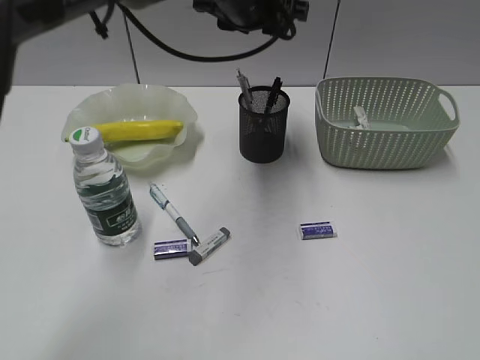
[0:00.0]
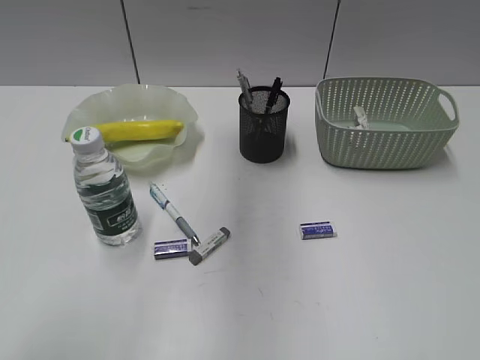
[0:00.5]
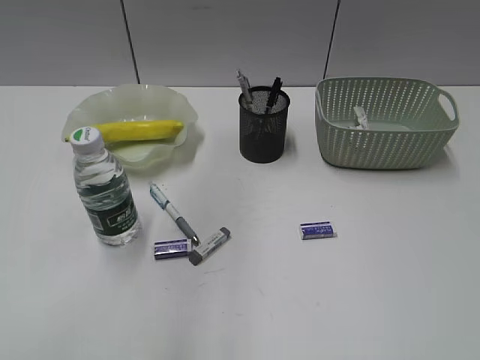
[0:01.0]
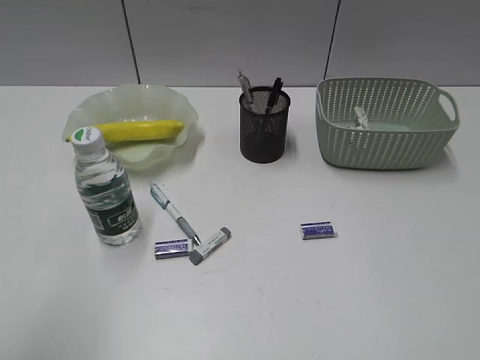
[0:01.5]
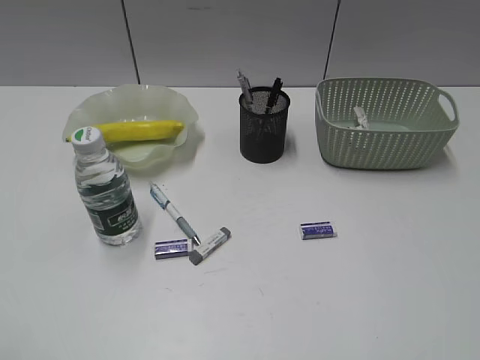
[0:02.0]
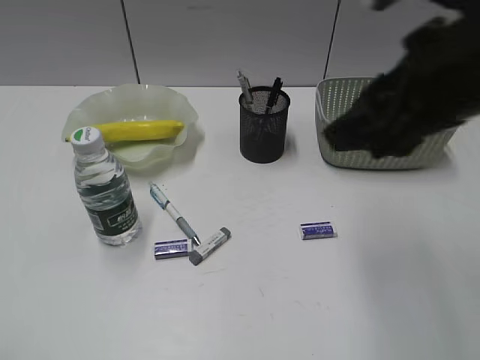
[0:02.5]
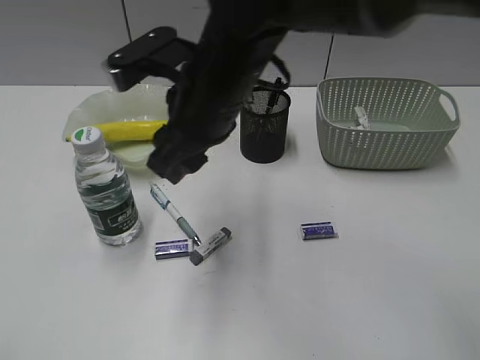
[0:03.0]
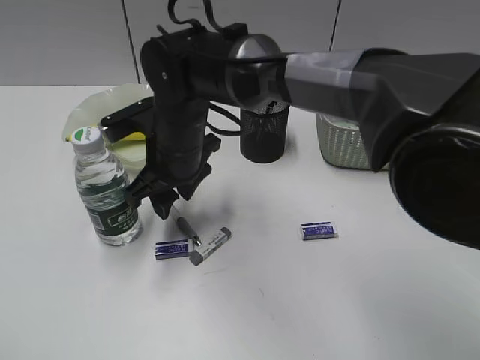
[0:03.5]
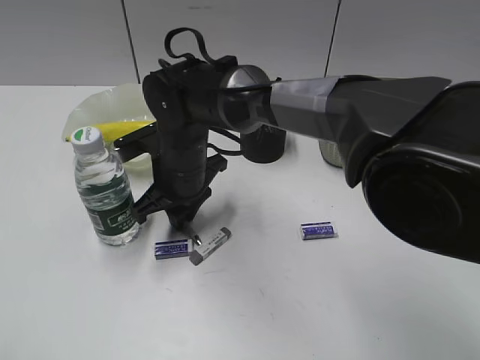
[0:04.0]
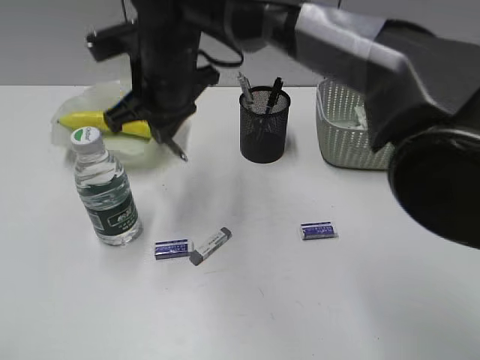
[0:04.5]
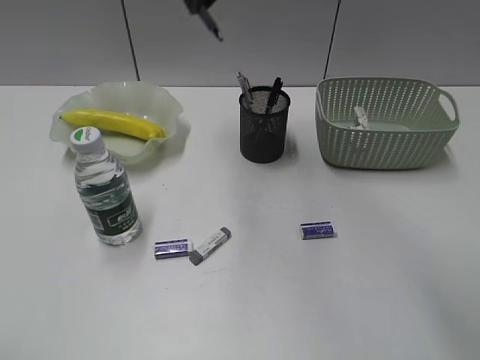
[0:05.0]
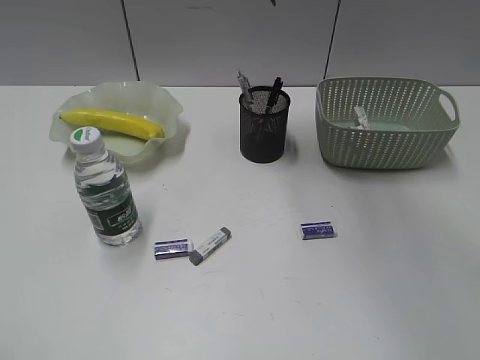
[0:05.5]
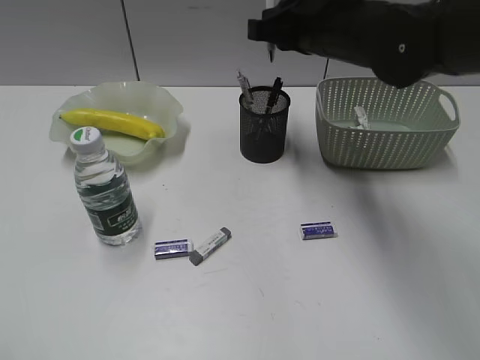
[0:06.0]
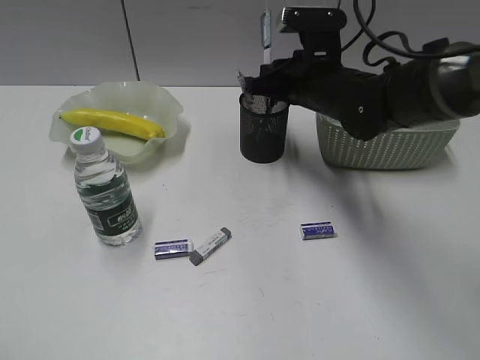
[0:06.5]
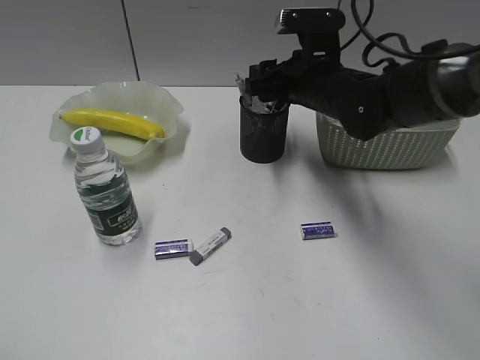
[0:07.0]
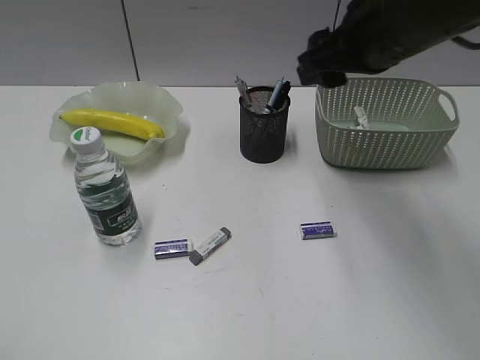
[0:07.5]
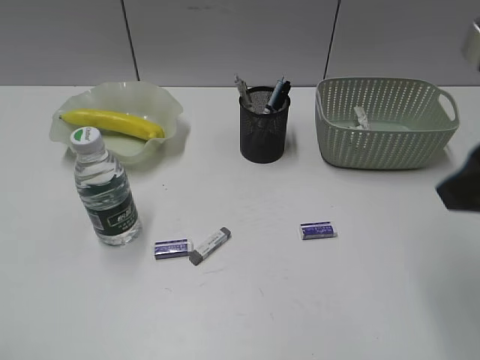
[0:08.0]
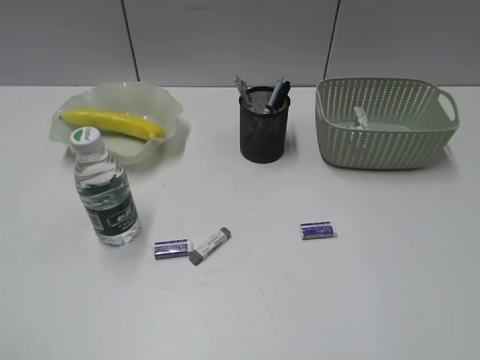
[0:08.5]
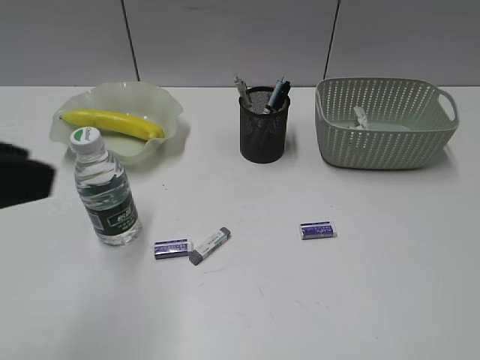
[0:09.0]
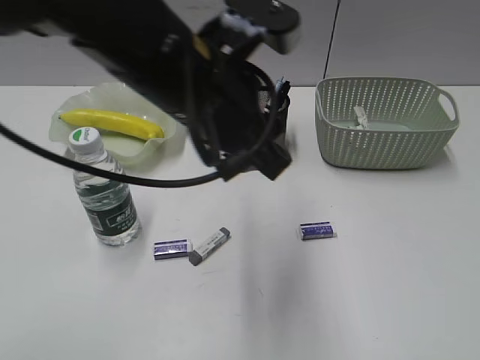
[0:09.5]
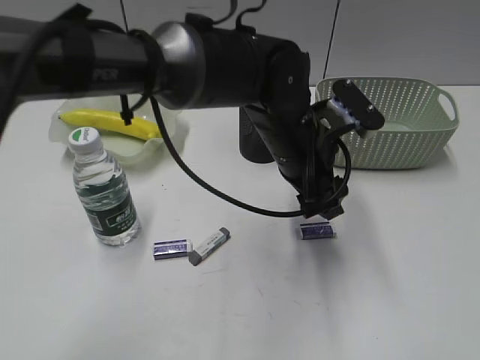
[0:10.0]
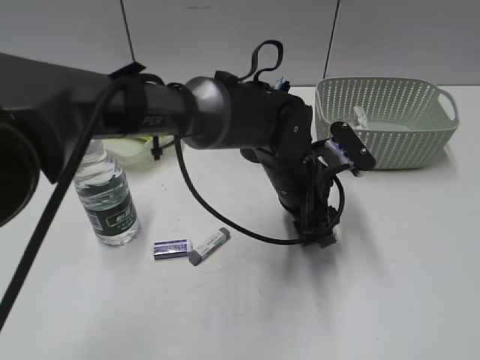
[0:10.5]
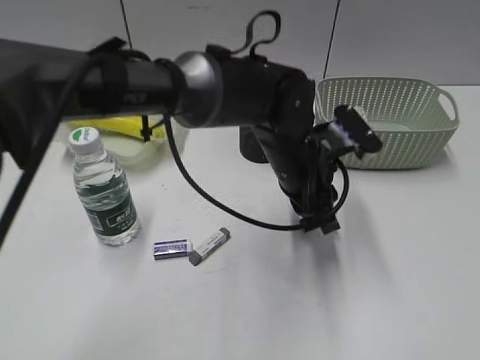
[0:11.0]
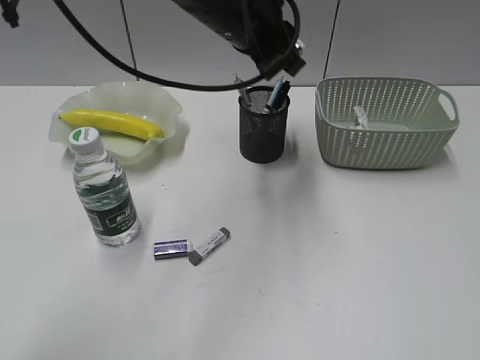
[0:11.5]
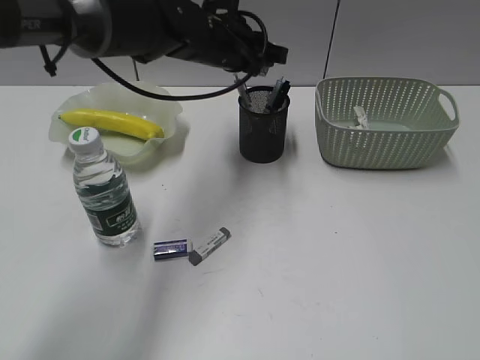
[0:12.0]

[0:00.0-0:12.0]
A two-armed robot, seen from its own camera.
Step, 0:00.0 to 0:04.0: Grasp the blue pen with right gripper.
Step, 0:04.5 to 0:07.0: Place the blue pen in pen holder with right gripper.
Step, 0:07.5 to 0:10.5: Grasp the eraser with left gripper.
0:00.0 to 0:02.0: The left gripper goes some 50 cm backward and to the left.
0:02.0 to 0:04.0: The right gripper travels to the left, forward and downward by some 50 cm, and closes up.
0:04.0 to 0:06.0: The right gripper shifts approximately 25 cm to the right and upward.
0:06.0 to 0:08.0: The right gripper is displaced backward and to the right by about 20 cm, and opens its fingers.
0:08.0 to 0:10.0: The left gripper shifts roughly 50 cm to the right and forward, while the right gripper shifts about 20 cm backward and to the right.
0:10.0 to 0:12.0: The left gripper swings up and down, about 15 cm each way, with 2 reversals, and closes.

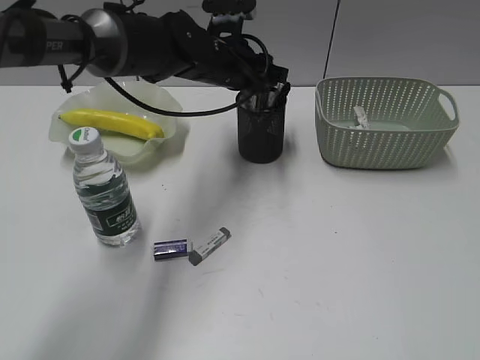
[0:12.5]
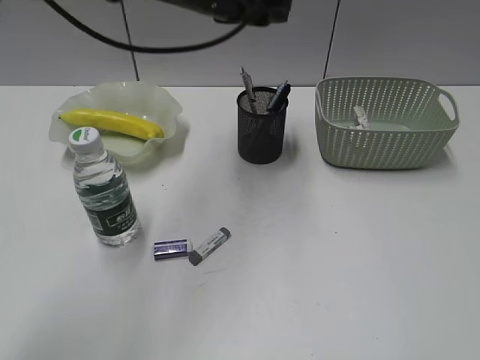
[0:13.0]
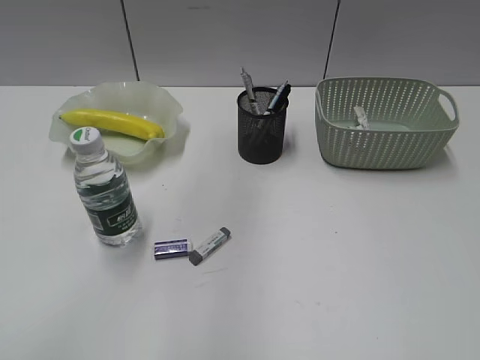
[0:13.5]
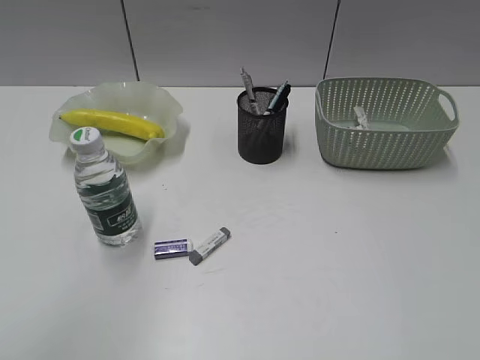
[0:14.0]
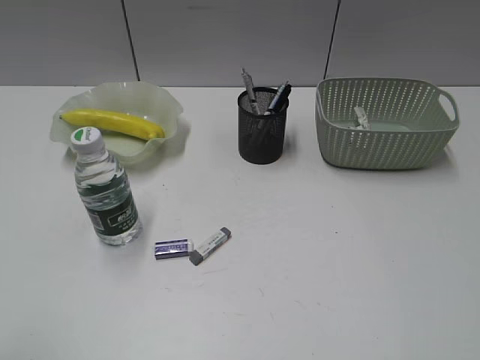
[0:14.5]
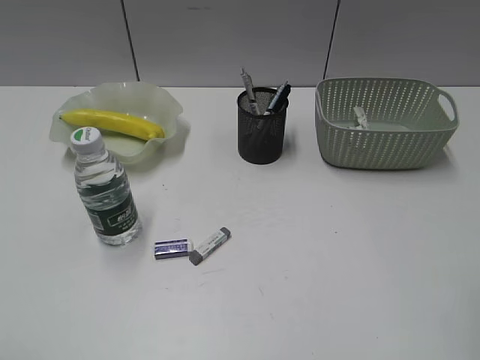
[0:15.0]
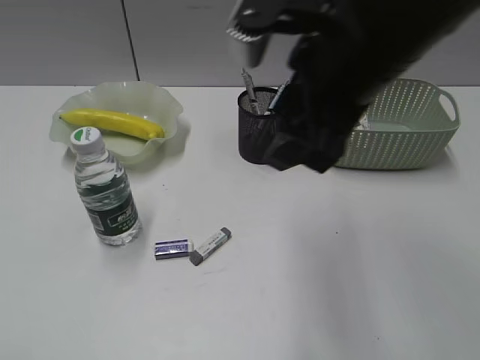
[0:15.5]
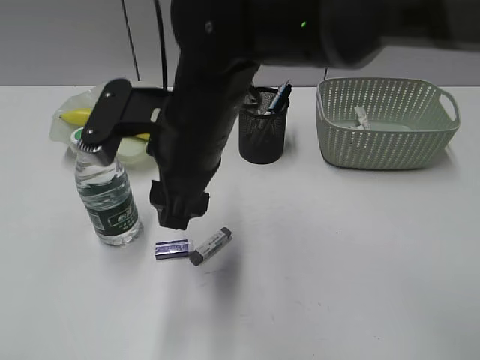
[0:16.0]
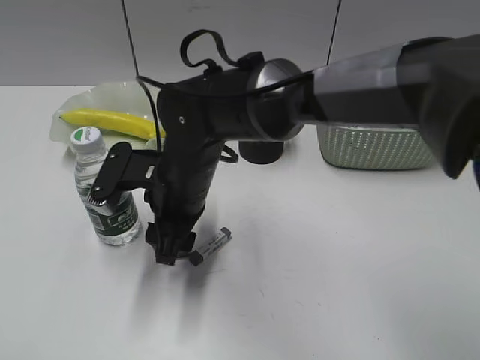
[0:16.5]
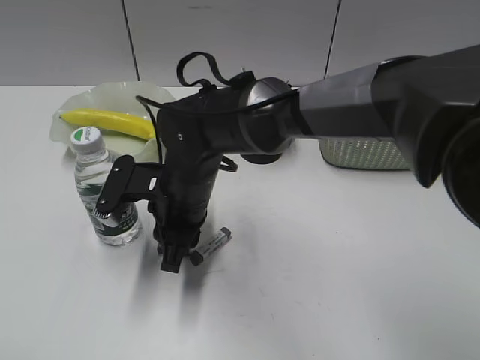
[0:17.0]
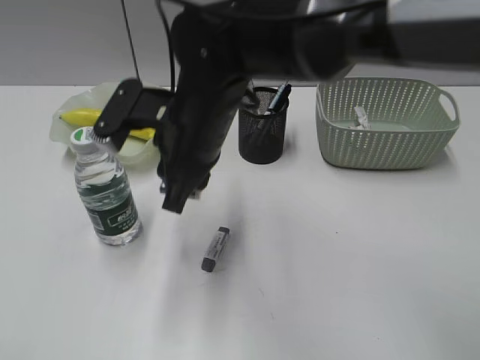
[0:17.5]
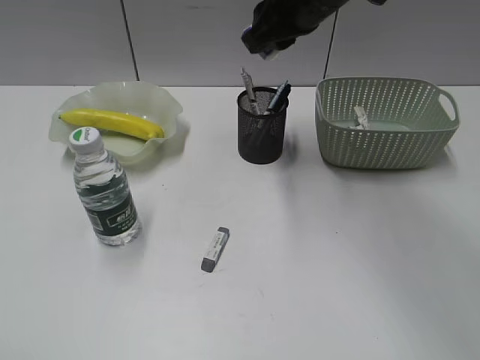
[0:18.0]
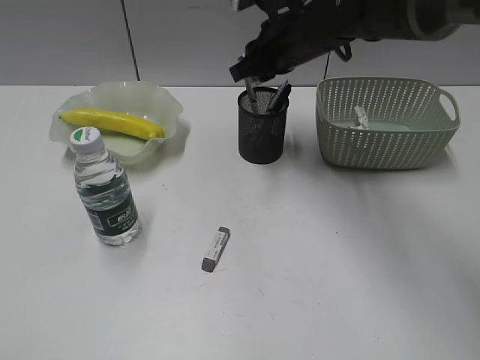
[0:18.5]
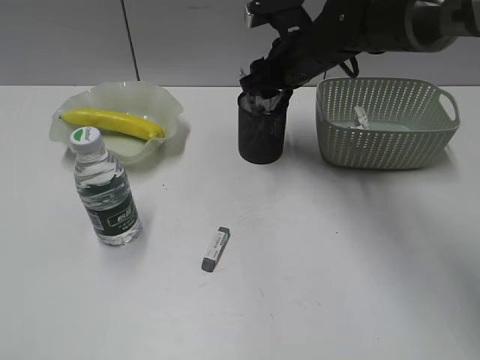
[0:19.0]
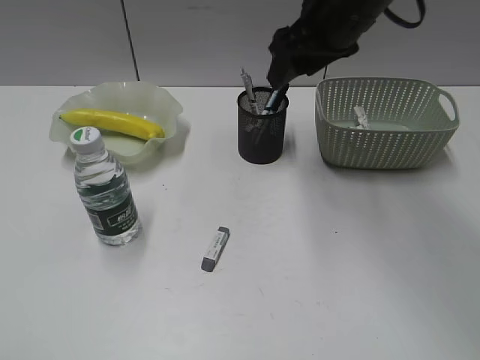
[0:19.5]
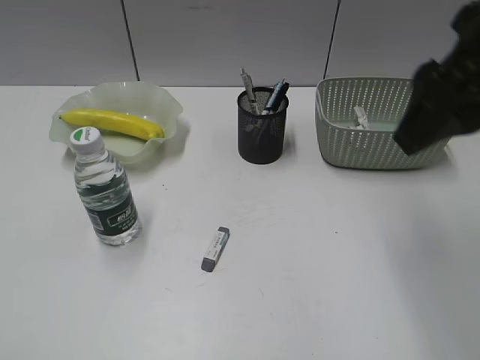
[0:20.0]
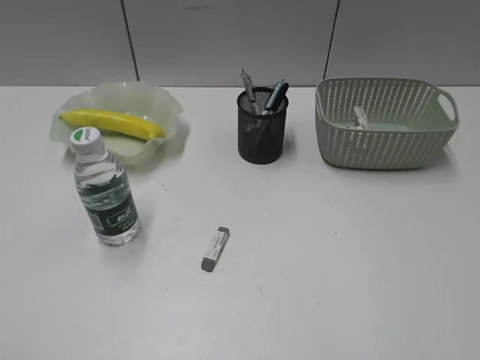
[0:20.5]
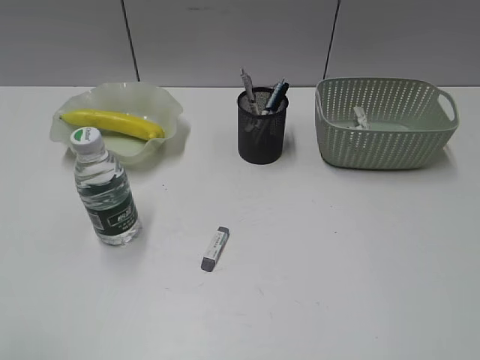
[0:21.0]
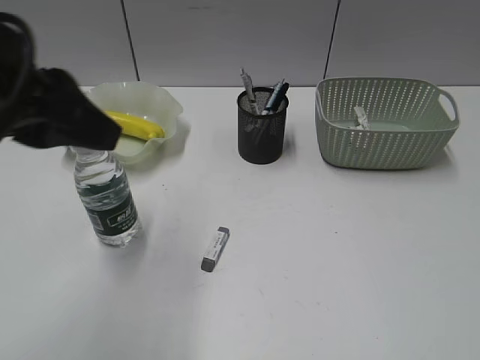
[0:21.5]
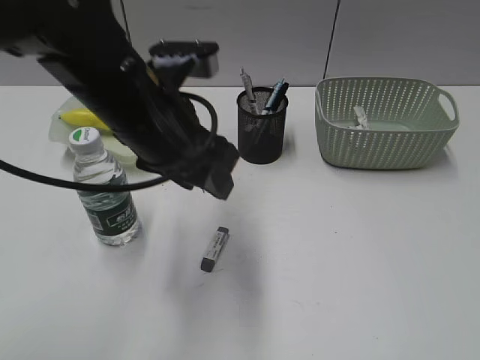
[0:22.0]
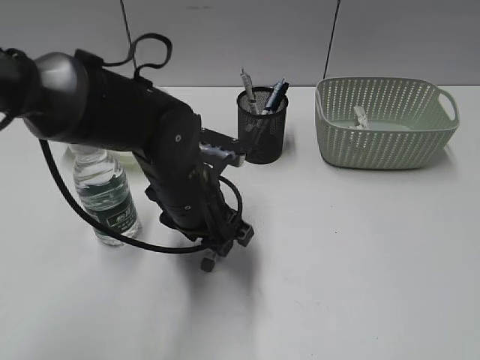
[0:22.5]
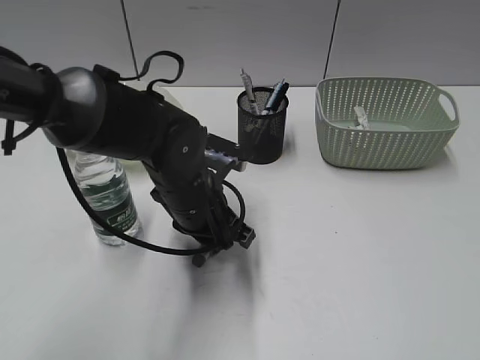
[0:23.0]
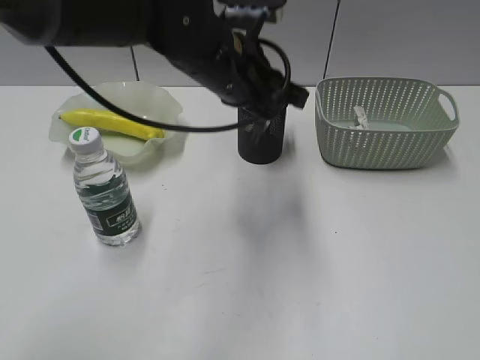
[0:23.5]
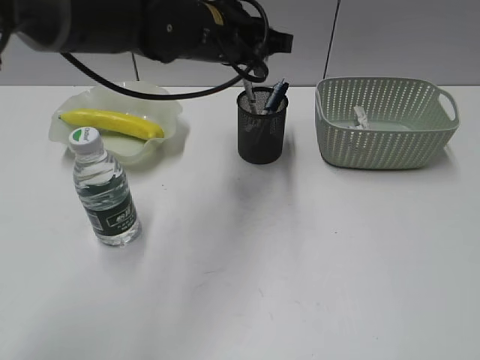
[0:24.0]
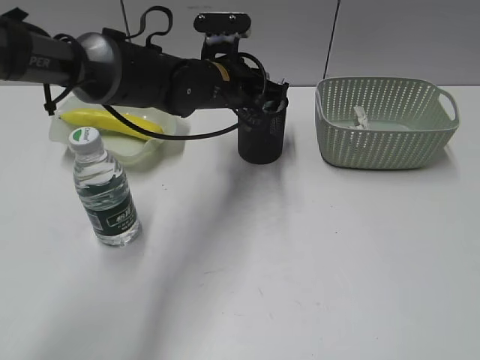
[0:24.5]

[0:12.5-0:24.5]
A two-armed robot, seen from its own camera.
Step, 0:13.0 to 0:17.0: Grasp the eraser with right gripper.
Step, 0:17.5 to 0:19.0: Place the eraser in pen holder with right gripper.
Step, 0:19.5 to 0:23.0: Grasp the eraser with left gripper.
0:12.5 to 0:14.5: The left gripper travels backward and to the left by approximately 50 cm.
0:14.5 to 0:16.5: The right gripper is displaced to the left, forward and downward by approximately 50 cm.
0:16.5 to 0:18.5: The right gripper shifts approximately 20 cm forward, to the right and upward, and closes up.
0:18.5 to 0:20.5: The right gripper goes approximately 40 cm backward and to the right, and opens.
0:20.5 to 0:22.5: The left gripper travels forward, to the right and downward by approximately 40 cm, and opens its fingers, while the right gripper is displaced backward by some 10 cm.
0:22.5 to 0:24.5: The left gripper shifts about 15 cm forward, moves approximately 10 cm upward and comes back, and closes its fingers.

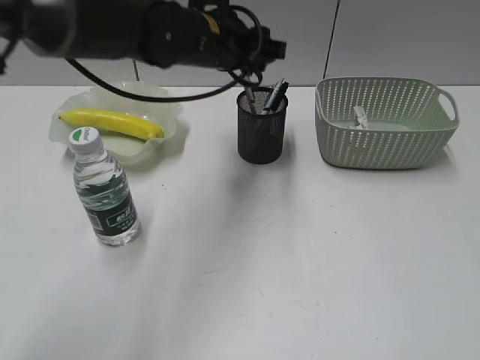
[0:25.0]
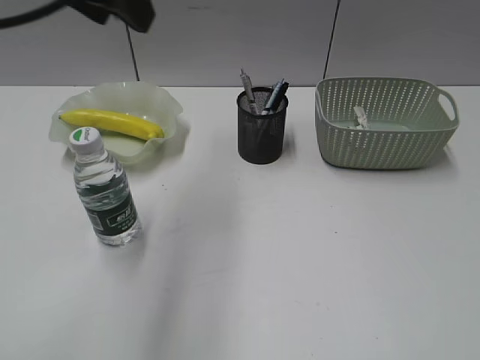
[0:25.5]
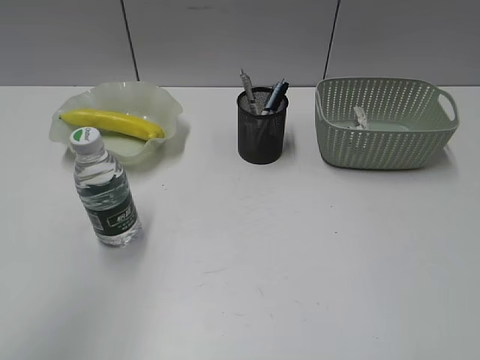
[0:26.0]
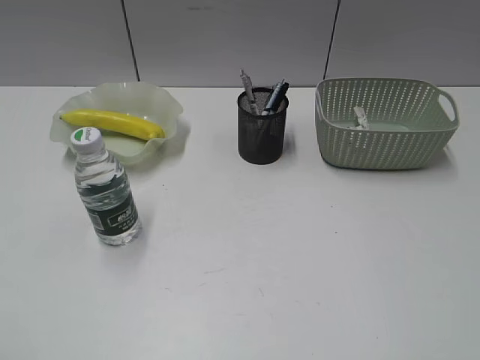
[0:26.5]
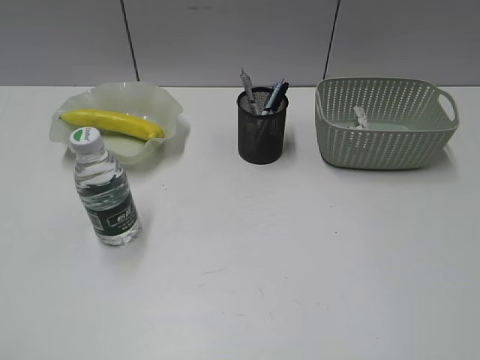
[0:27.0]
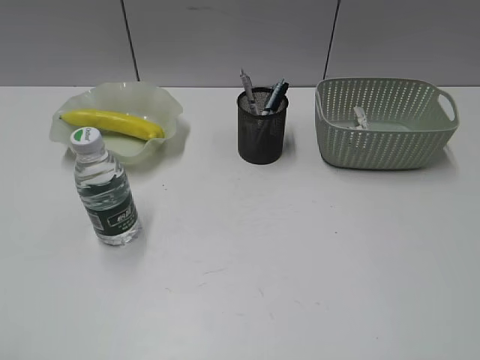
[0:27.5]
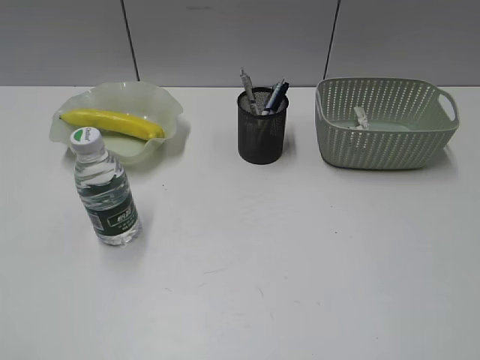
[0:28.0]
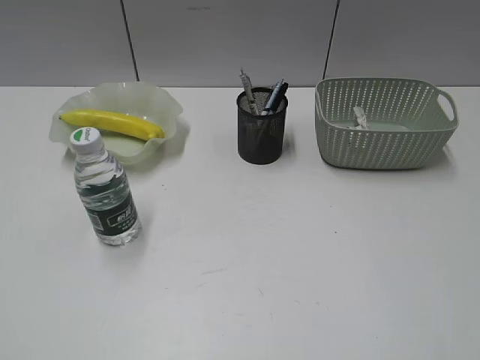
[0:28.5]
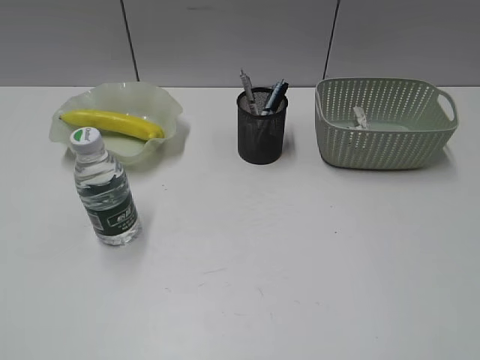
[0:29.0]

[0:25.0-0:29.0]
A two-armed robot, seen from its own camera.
0:25.0 to 0:27.0: The left gripper goes approximately 50 cm backward and to the left.
